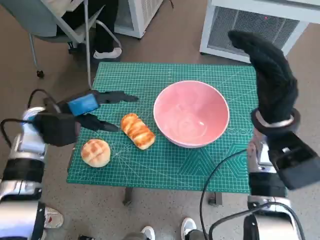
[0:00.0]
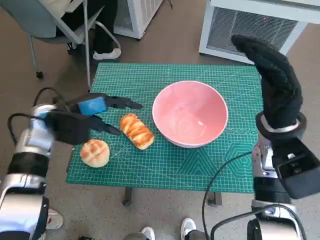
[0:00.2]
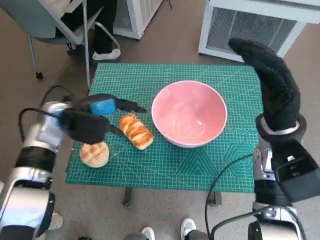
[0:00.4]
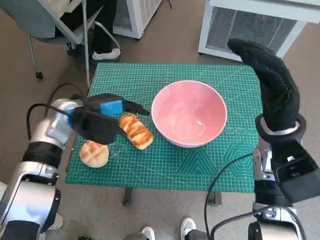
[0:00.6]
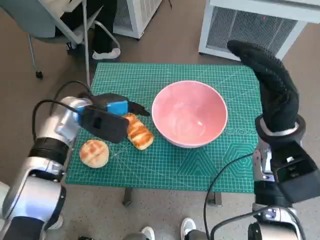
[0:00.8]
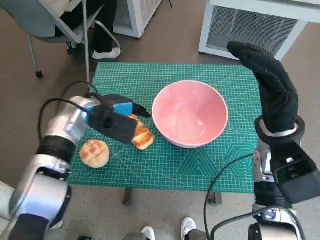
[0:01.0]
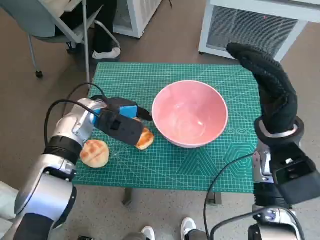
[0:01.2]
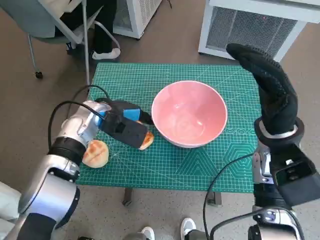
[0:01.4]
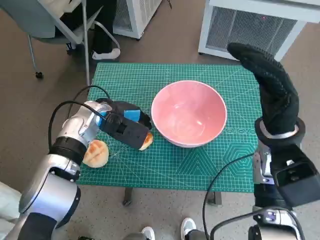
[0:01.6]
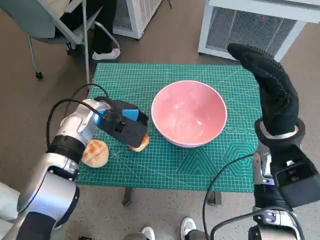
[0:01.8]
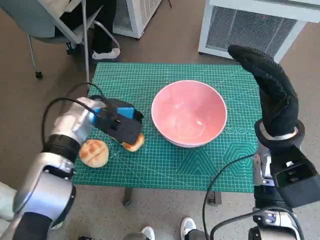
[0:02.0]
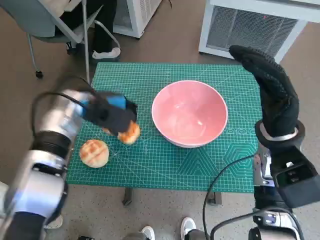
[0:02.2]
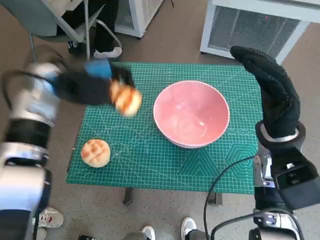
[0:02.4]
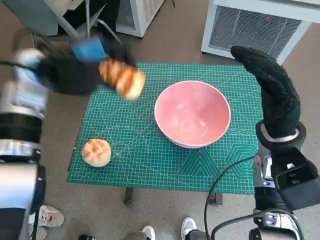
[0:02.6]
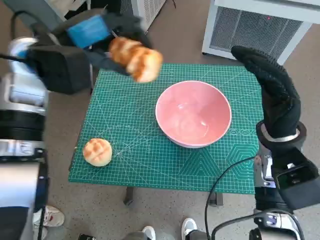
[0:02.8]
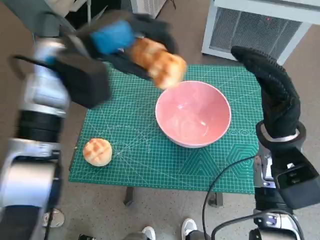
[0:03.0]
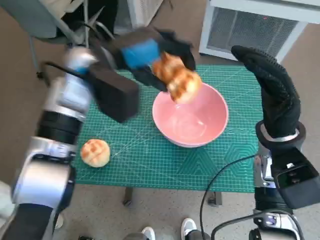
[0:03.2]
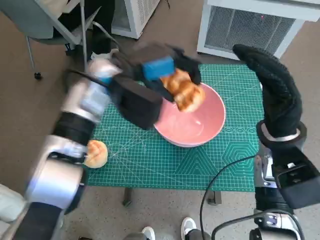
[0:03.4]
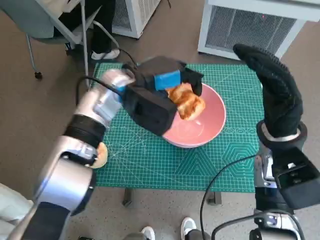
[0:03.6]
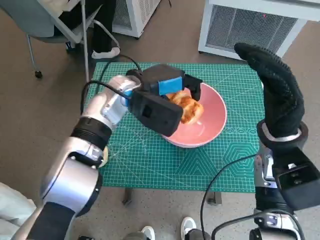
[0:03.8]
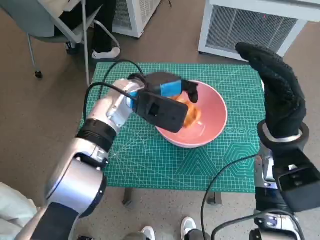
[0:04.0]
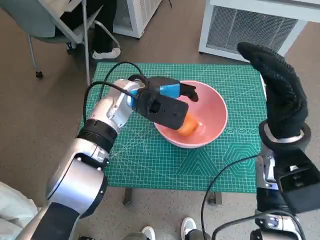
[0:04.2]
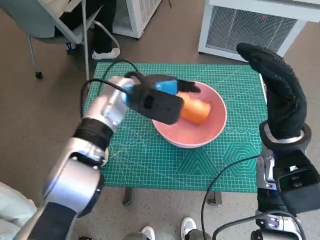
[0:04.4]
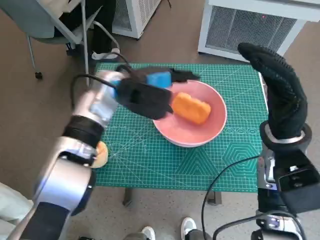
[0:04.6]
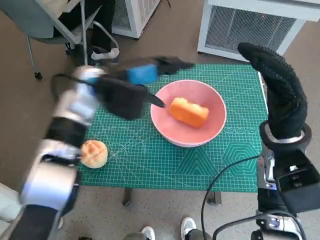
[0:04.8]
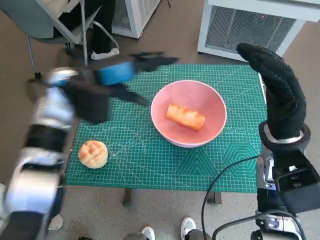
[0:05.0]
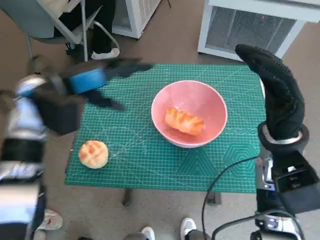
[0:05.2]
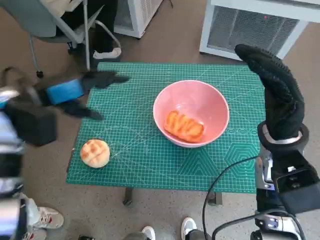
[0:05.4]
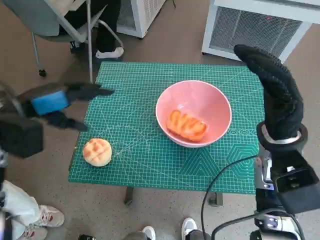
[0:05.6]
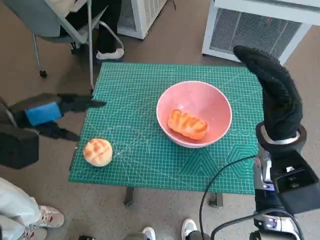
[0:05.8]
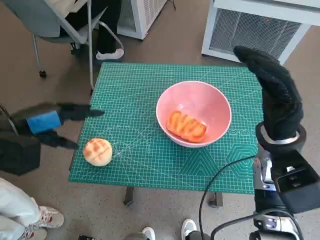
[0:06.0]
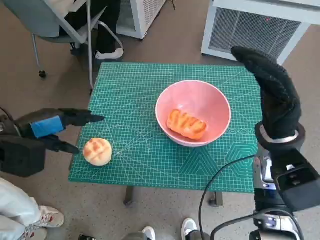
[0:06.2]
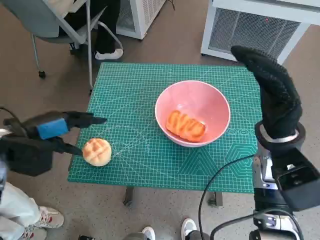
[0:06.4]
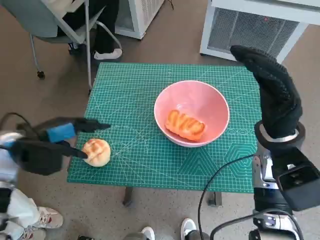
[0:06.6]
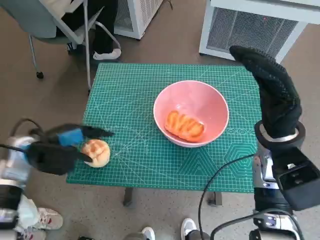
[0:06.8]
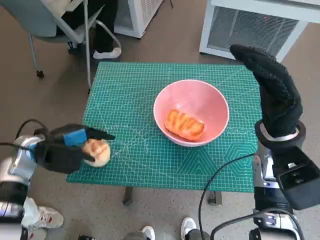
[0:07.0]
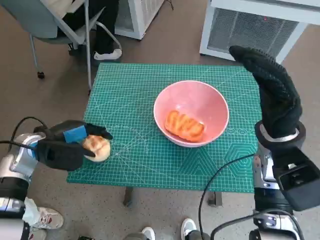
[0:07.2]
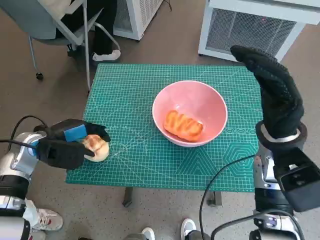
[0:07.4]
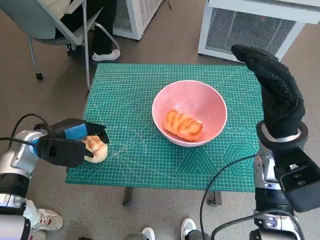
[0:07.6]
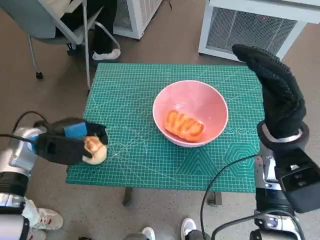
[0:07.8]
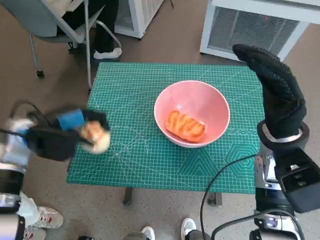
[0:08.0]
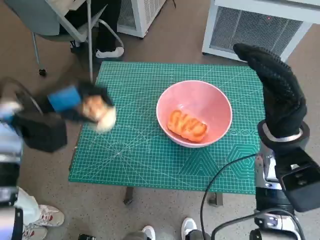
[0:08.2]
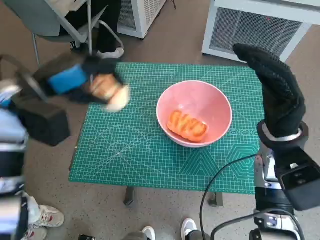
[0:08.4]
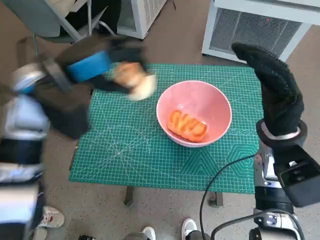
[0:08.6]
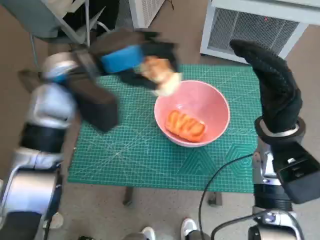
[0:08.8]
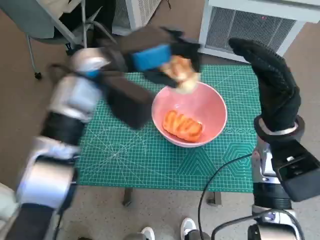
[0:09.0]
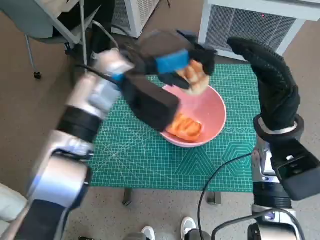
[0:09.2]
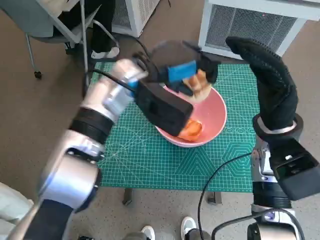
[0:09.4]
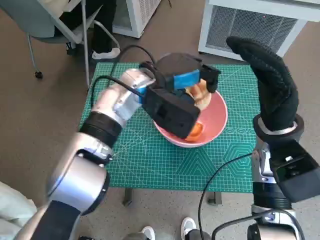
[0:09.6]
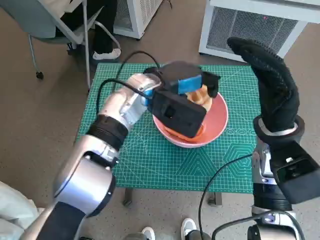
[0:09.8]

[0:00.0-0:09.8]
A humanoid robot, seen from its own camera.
Task of the whole recording: Push the bowl to the center of the table and put the bread into the bowl.
Step, 0.0 to 1.6 s: Grasp the long bread with left hand.
Step, 1.8 to 4.8 s: Place the long bread in pink bowl with left hand.
Step, 5.0 to 7.2 s: Grasp the round bread with left hand.
0.0 to 1.4 s: The left hand goes some 10 cm to the right.
1.4 to 2.8 s: The left hand travels upward by roughly 15 cm.
2.8 to 4.2 s: The left hand heads to the right and downward, covering some 15 cm.
4.2 to 5.6 s: The left hand goes roughly 20 cm to the left.
5.6 to 7.0 s: The left hand shifts about 10 cm downward.
7.0 to 8.4 s: The left hand shifts some 15 cm upward.
8.4 to 9.8 s: The left hand heads to the right, covering approximately 20 cm.

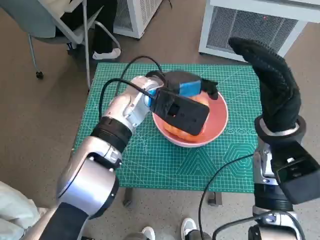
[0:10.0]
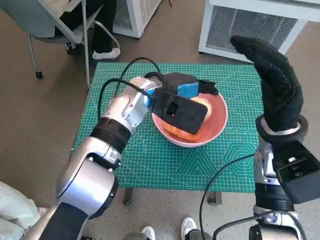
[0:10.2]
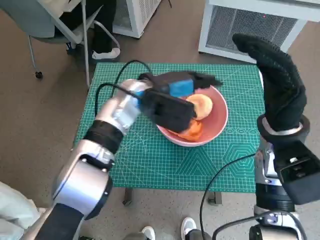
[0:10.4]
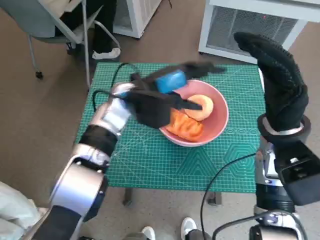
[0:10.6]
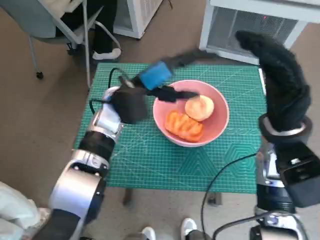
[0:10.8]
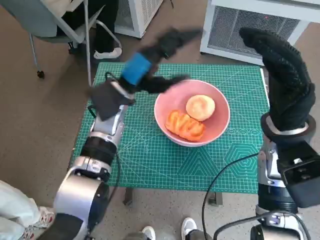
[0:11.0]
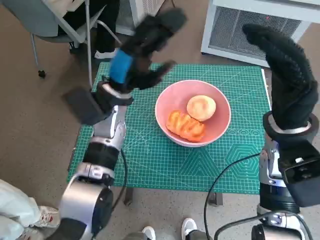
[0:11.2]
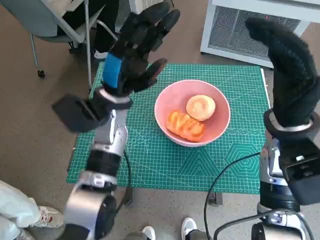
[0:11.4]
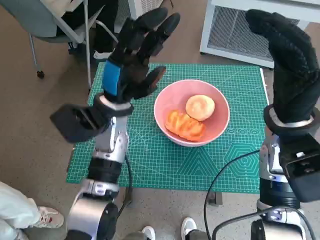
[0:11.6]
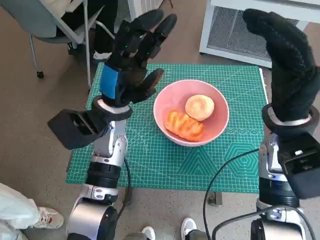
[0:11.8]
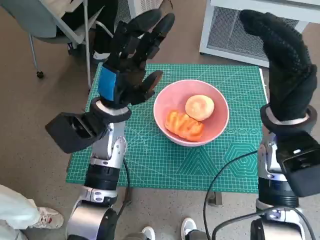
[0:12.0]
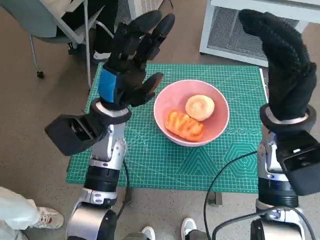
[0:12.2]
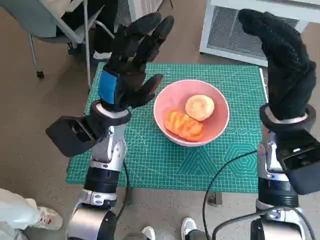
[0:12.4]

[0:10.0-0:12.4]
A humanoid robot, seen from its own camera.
Task of the whole recording: Push the bowl to the center of the table and put the bread into the bowl.
10.0 to 11.2 s: The left hand shifts approximately 5 cm to the left.

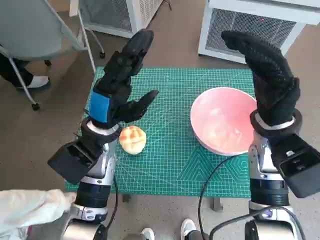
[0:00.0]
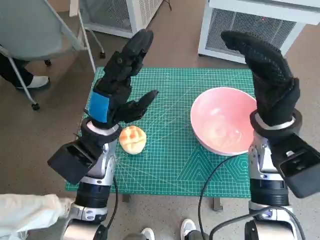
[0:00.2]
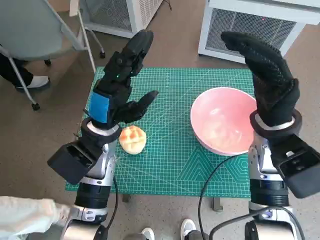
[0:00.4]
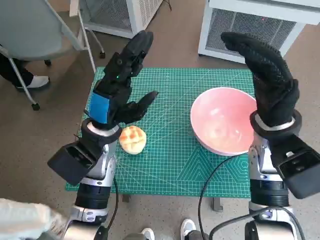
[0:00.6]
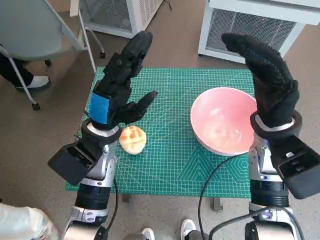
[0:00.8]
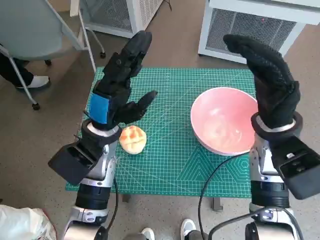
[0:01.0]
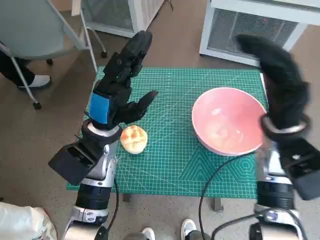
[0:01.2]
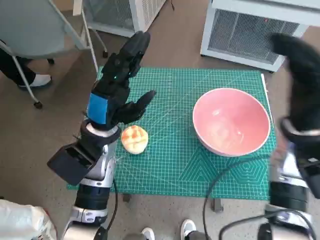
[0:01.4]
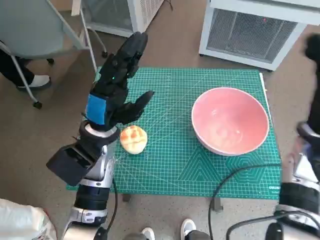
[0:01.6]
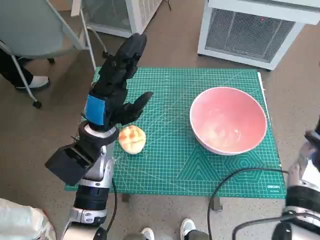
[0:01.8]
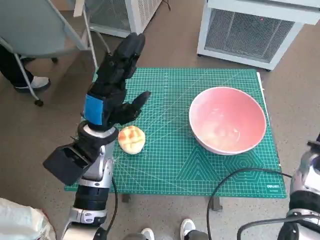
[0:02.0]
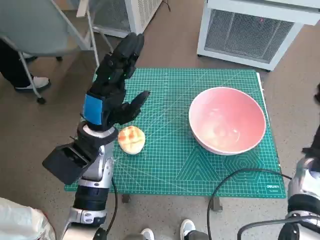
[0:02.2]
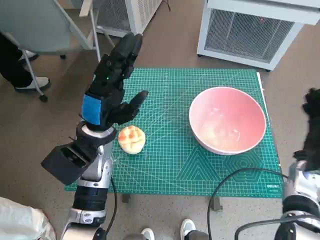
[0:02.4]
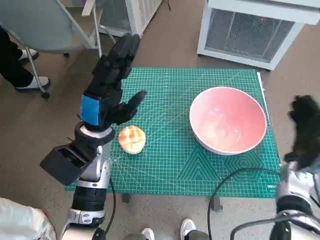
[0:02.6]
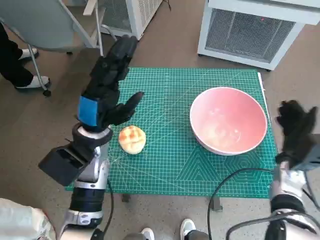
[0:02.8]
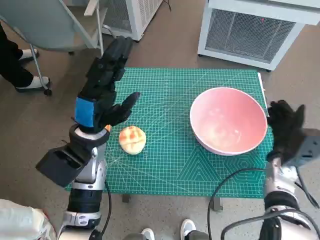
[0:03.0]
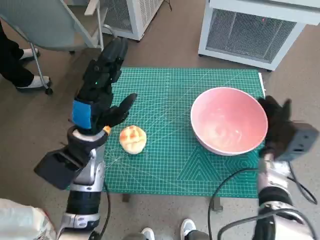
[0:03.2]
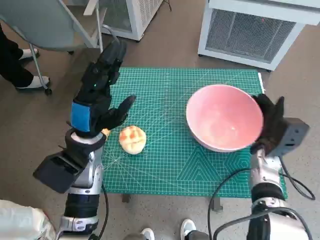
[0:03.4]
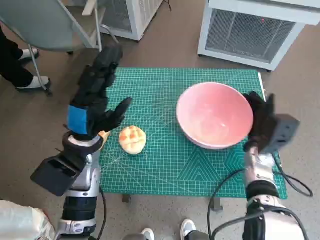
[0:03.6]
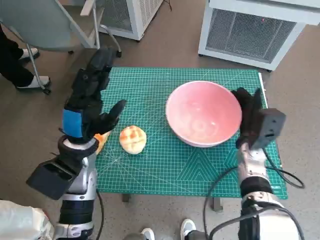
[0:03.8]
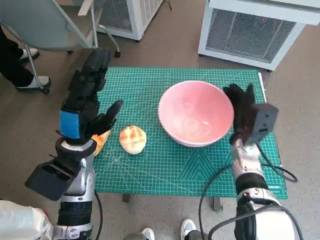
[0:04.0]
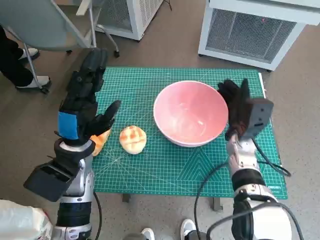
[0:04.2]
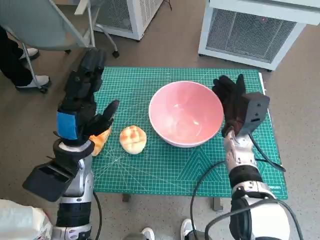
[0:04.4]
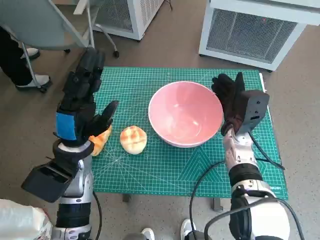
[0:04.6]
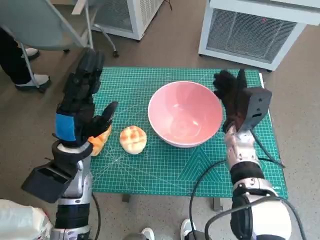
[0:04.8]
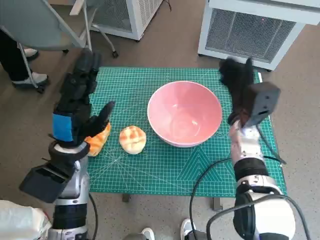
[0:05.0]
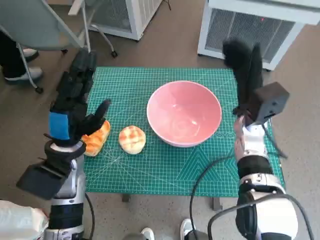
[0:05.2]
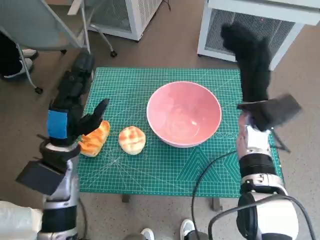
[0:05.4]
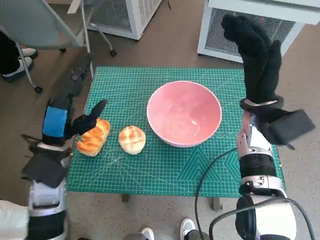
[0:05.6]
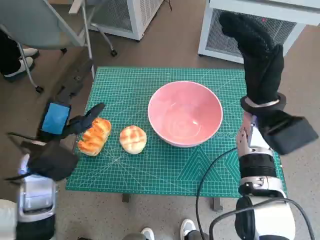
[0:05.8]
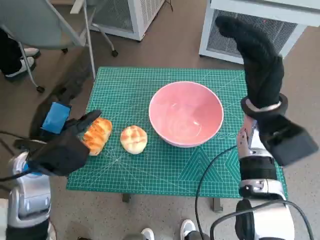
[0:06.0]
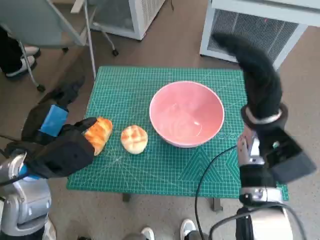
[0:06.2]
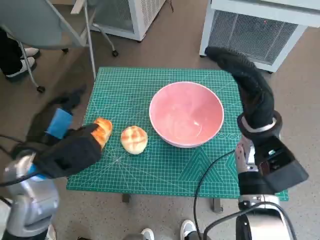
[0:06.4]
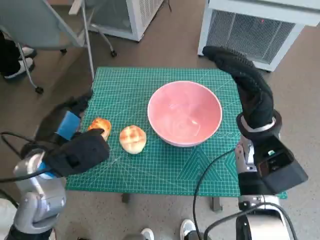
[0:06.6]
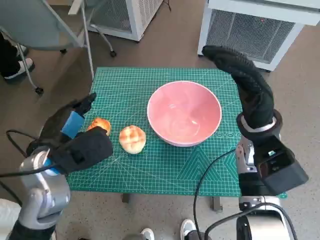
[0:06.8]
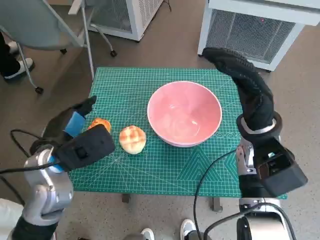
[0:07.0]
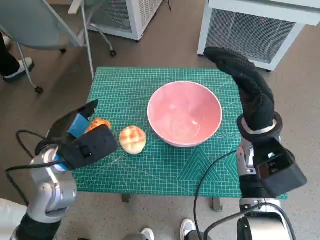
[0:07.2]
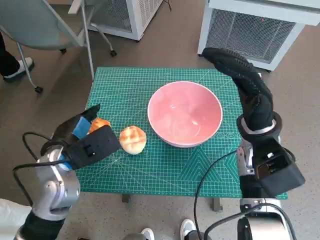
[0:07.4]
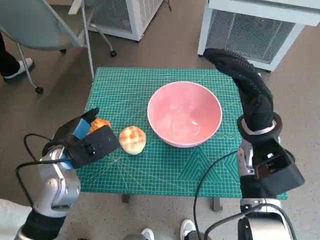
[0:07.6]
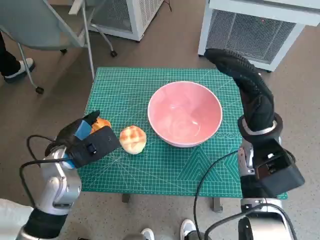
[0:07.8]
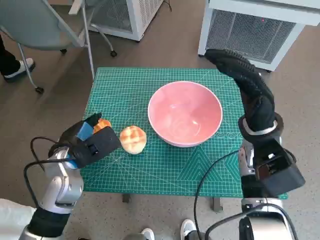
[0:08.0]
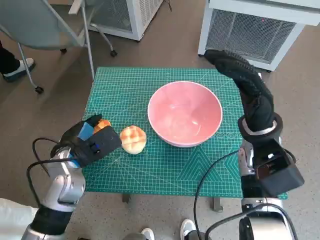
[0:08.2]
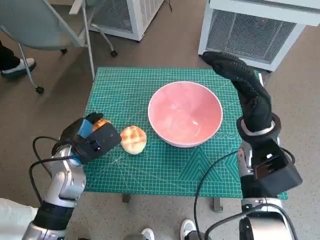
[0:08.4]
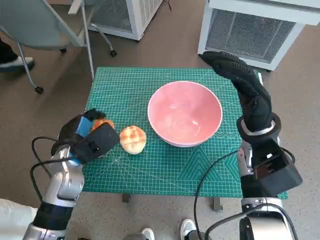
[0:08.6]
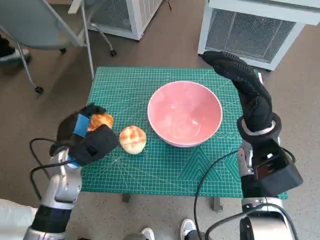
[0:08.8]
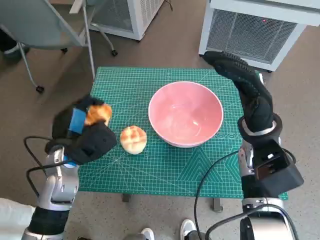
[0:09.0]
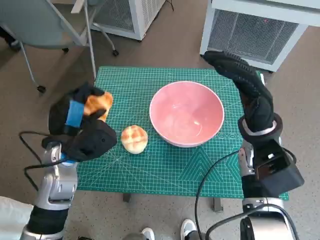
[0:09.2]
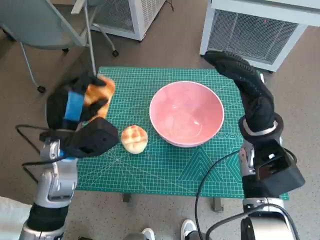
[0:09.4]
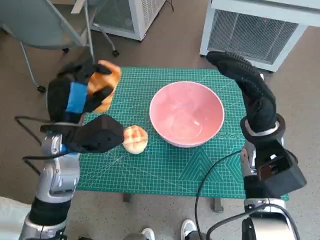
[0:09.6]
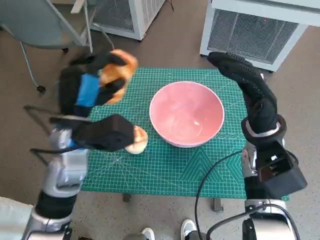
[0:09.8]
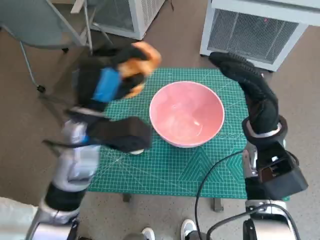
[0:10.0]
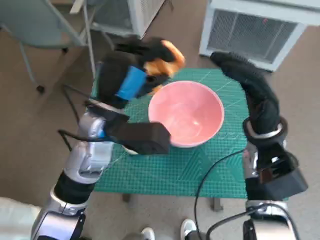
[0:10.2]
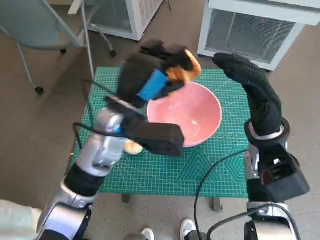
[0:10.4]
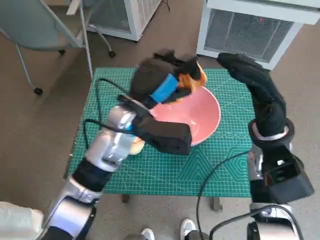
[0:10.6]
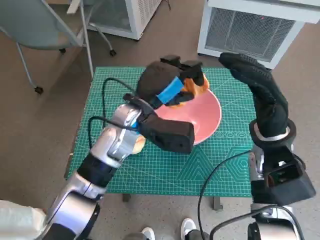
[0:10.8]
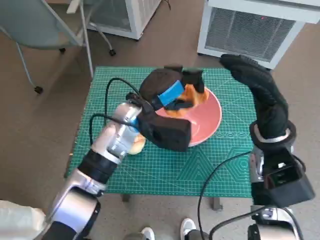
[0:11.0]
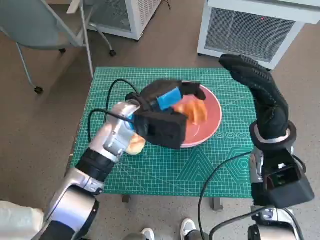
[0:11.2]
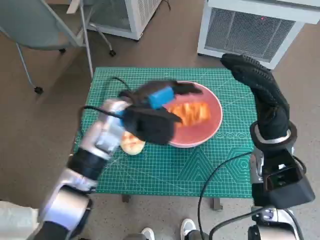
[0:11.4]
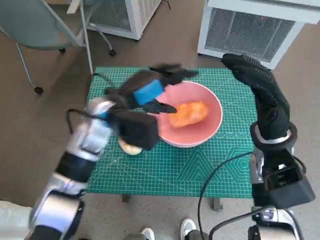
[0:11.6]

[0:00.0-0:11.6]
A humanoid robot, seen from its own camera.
Task of the whole recording: Push the bowl to the center of the table and put the bread into the bowl.
Step, 0.0 to 4.8 s: Move the pink bowl to the center of table with right hand.
Step, 5.2 to 8.4 s: Grasp the long bread with left hand.
Step, 8.6 to 11.4 s: Place the long bread in pink bowl with left hand.
1.4 to 2.8 s: The right hand shifts roughly 15 cm downward and to the right.
2.8 to 4.4 s: The right hand shifts approximately 15 cm to the left and forward.
4.4 to 5.8 s: The left hand shifts by about 5 cm, while the right hand shifts roughly 10 cm upward.
7.2 to 8.8 s: The left hand goes roughly 5 cm downward.
8.8 to 10.2 s: The left hand is displaced upward and to the right by roughly 15 cm.
